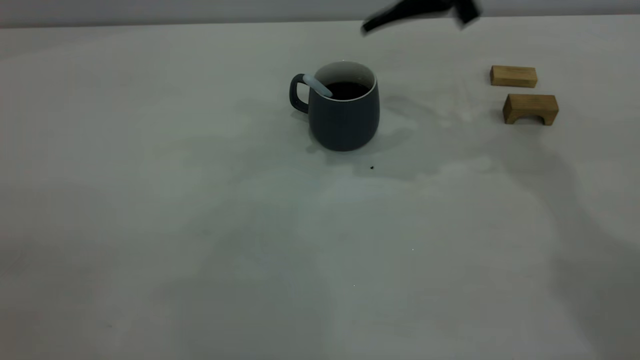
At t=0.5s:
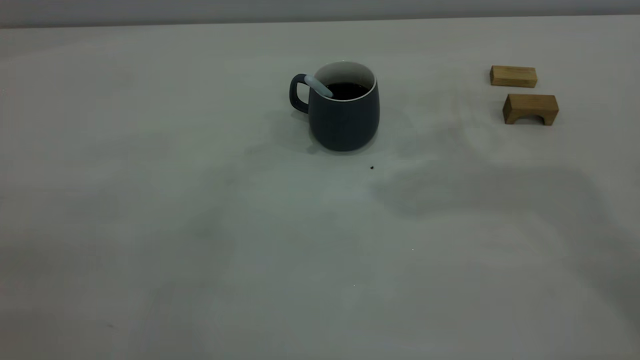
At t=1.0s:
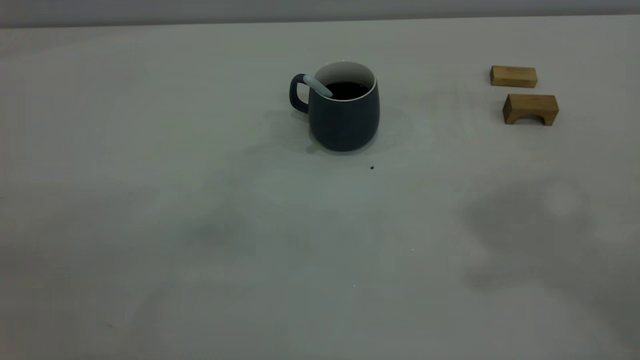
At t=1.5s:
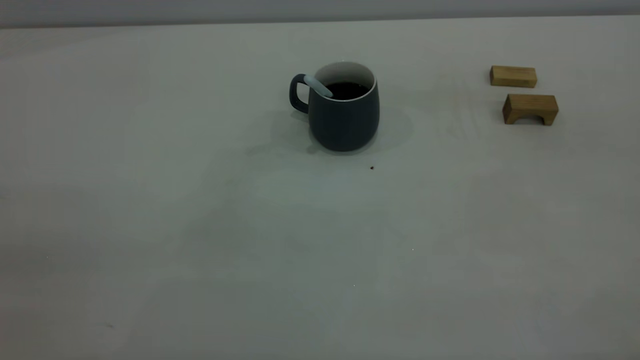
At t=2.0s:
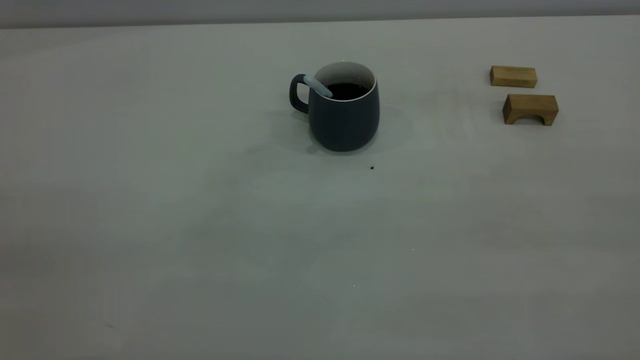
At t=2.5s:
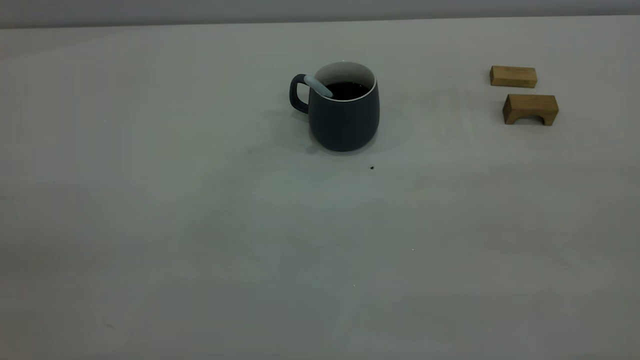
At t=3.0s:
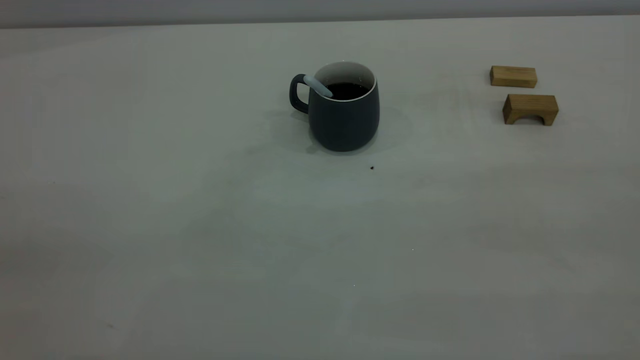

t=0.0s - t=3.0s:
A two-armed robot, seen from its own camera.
t=0.0s - t=1.5s: The right gripper moves backward and upward, some 40 cm, and closes its fingers.
